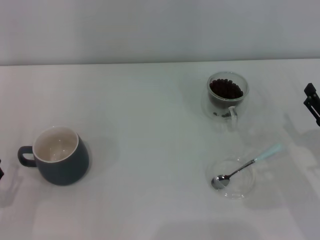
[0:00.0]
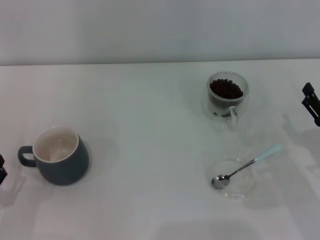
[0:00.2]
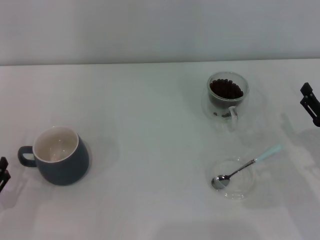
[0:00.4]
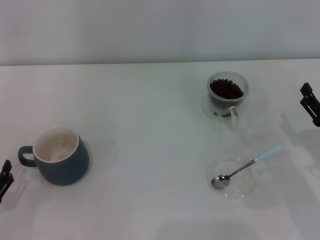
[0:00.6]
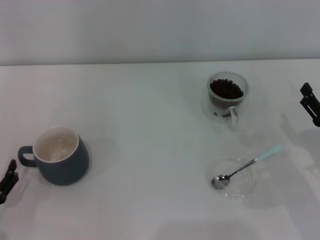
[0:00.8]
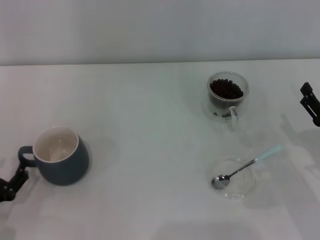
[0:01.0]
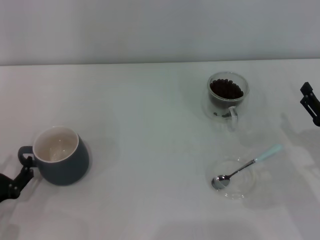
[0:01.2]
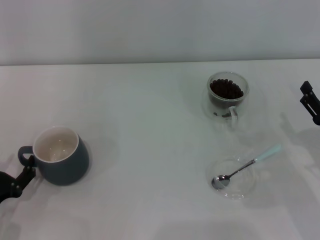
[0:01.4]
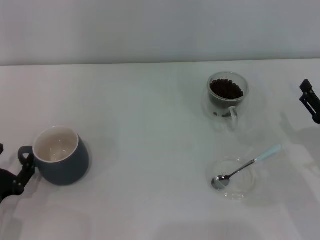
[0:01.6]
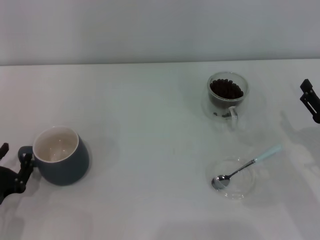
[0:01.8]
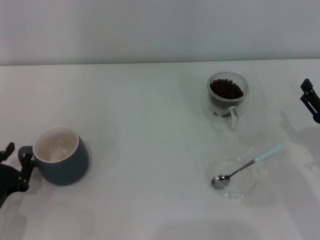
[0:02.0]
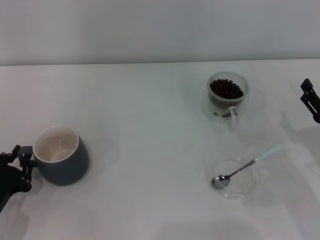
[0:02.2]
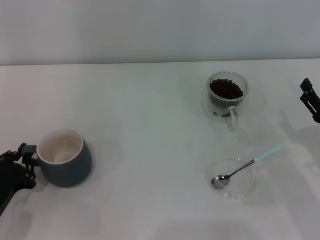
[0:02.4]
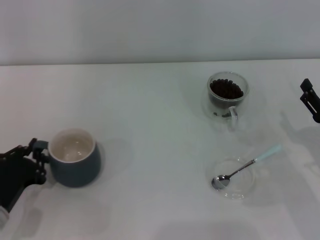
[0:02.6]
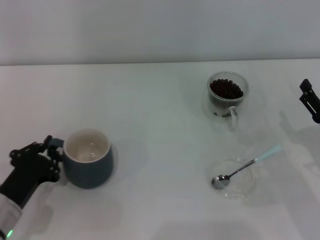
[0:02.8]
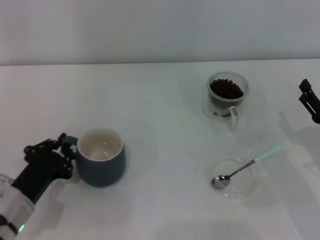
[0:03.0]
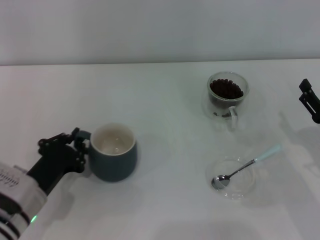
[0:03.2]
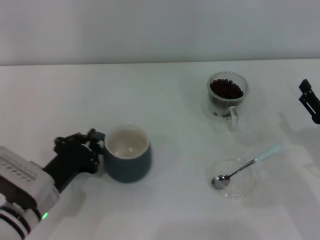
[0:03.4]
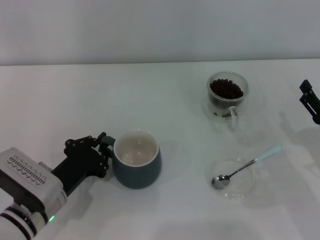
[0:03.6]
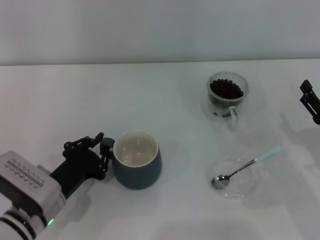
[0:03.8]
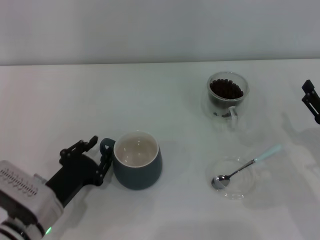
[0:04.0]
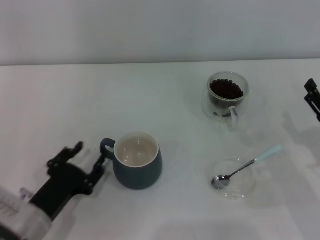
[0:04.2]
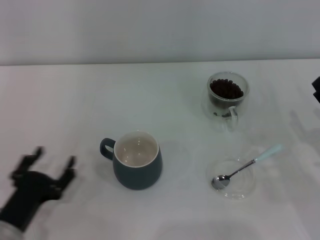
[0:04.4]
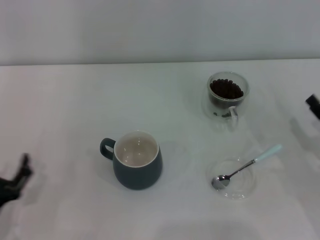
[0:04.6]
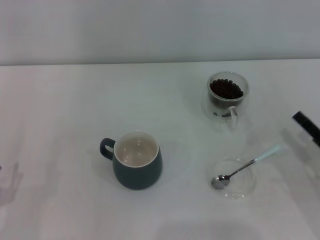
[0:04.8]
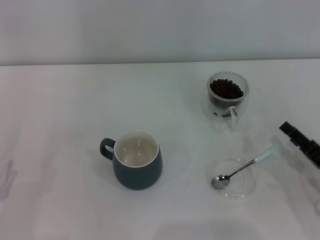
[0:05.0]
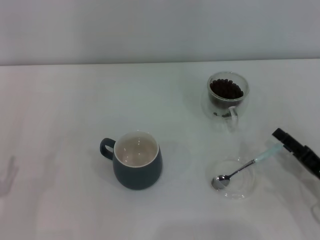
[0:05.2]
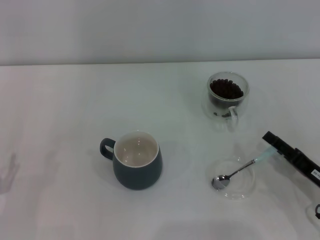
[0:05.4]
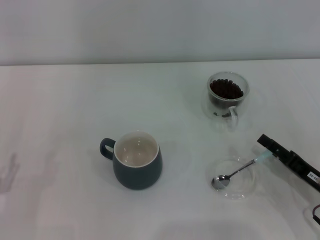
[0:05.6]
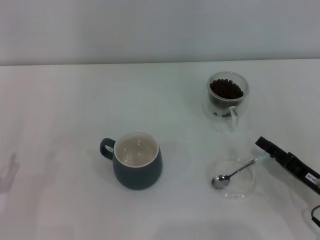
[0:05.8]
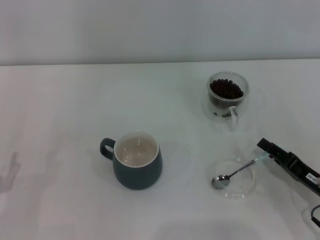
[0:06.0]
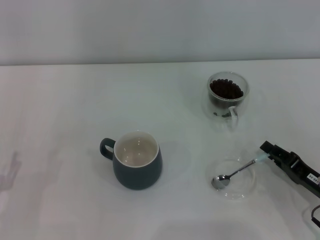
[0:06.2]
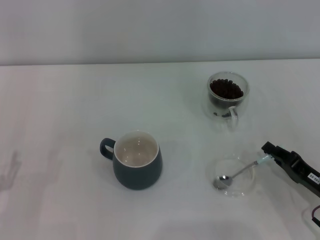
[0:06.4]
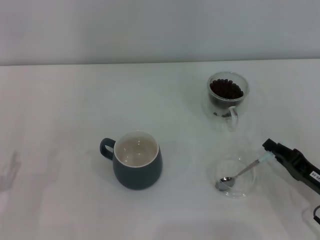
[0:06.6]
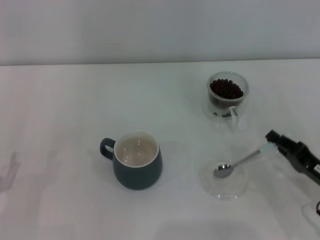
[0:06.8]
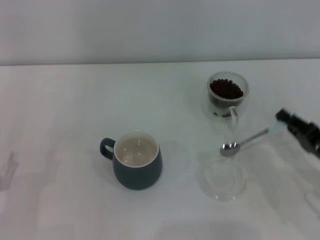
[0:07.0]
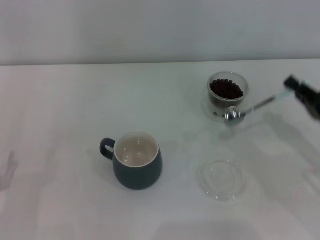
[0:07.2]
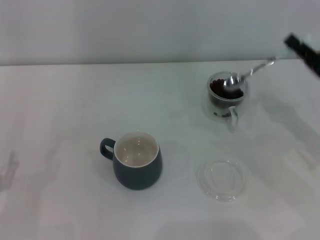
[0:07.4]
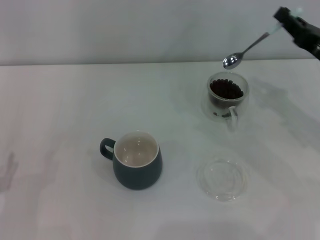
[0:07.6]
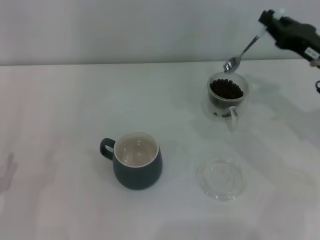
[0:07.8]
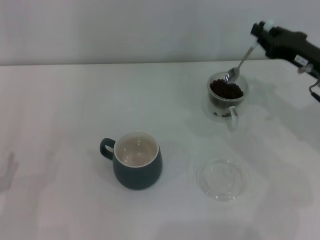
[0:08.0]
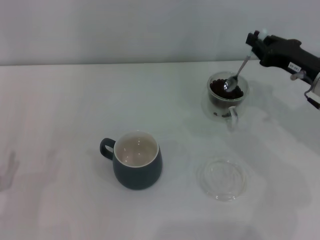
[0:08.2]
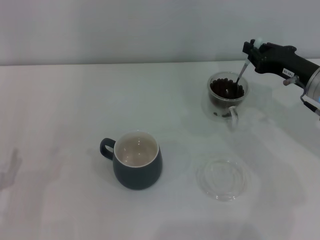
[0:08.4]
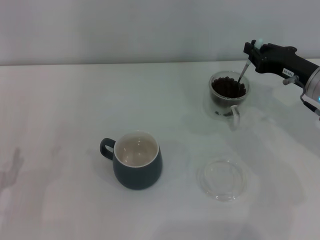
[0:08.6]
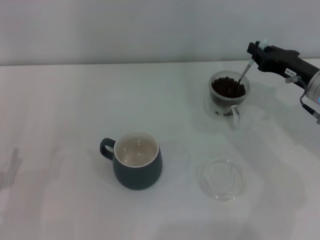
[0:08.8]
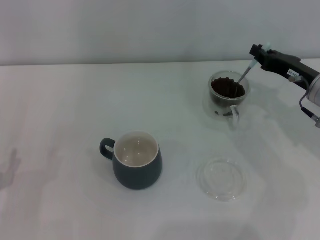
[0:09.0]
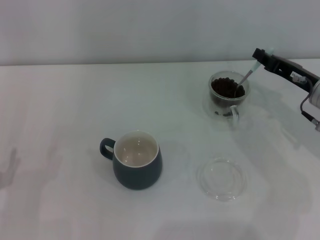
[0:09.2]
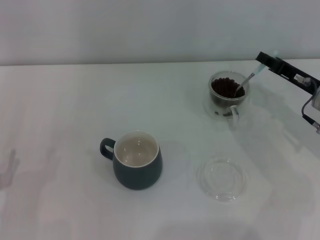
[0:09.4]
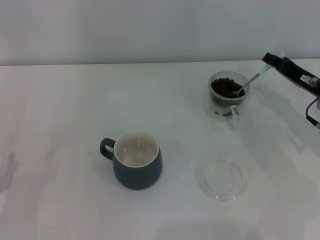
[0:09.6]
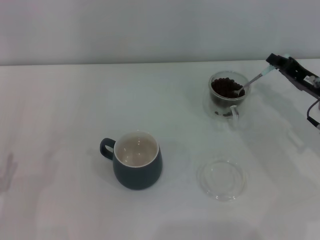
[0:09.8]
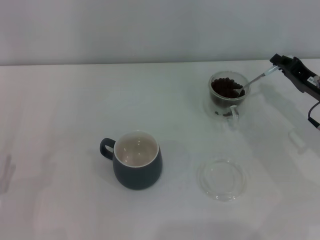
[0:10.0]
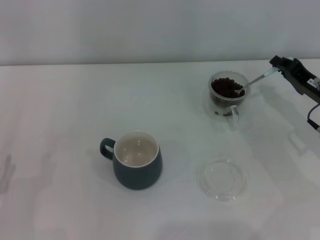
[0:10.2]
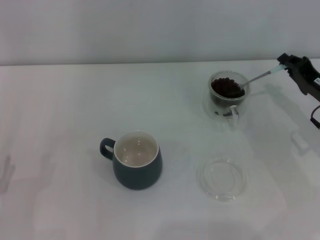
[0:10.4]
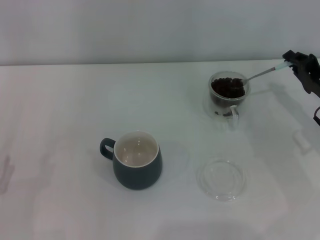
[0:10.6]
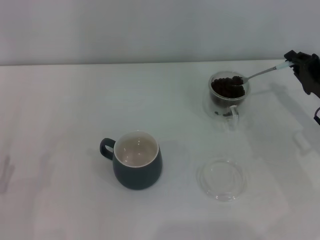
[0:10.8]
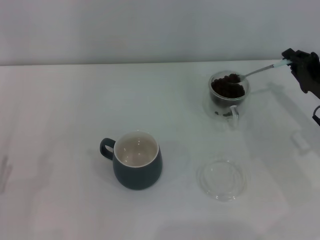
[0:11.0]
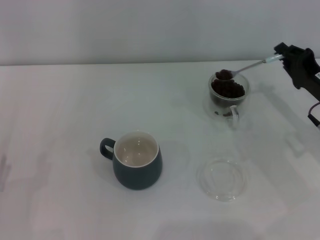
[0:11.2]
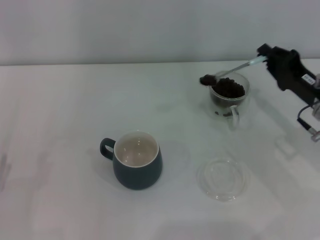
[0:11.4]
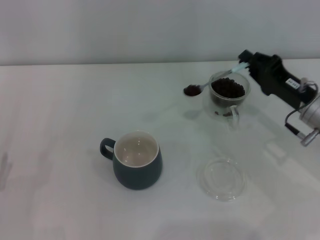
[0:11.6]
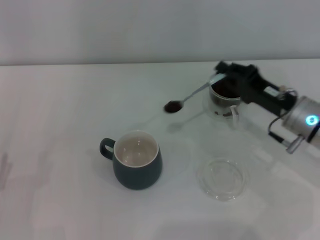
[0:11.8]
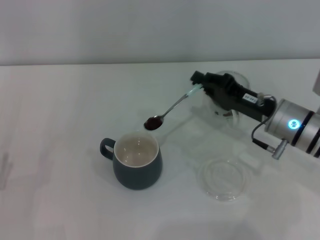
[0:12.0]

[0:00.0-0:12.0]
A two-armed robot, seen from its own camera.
Task of the whole recording: Use a blue spoon to take out the coffee beans from the glass and pour them into the gray cup.
Step, 0:00.0 to 0:04.2: Move the cup to the center of view with the left gripper.
Step, 0:04.4 to 0:06.8: Pick up the spoon with the right gripper.
0:00.0 to 0:01.6: The grippers stay close to where they were, moving slightly.
0:01.6 to 0:03.0: The left gripper moves to the right, some 5 cm, and closes up.
0:03.0 to 0:04.4: The left gripper opens its fingers.
0:04.4 to 0:06.0: The left gripper travels to the left by some 5 cm, and opens up, while the right gripper ends up approximately 5 cm from where it was.
0:06.0 to 0:07.6: The right gripper travels upward and forward by roughly 20 cm, and closes its fingers.
0:10.4 to 0:12.0: The right gripper is displaced to the left by some 10 cm.

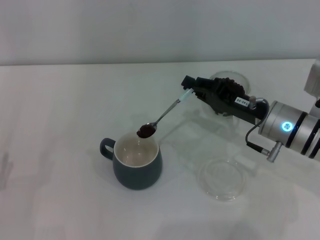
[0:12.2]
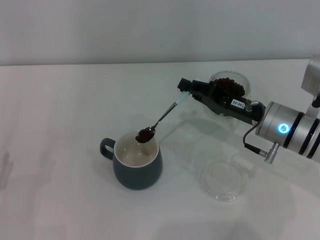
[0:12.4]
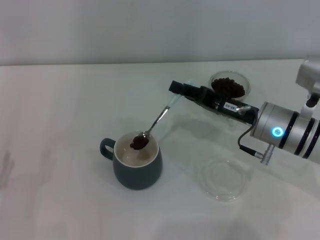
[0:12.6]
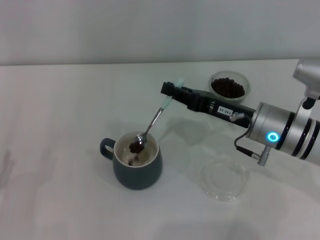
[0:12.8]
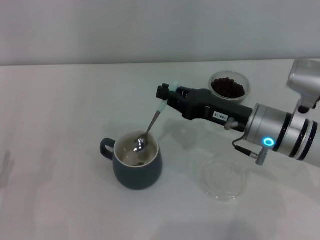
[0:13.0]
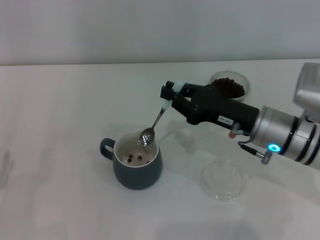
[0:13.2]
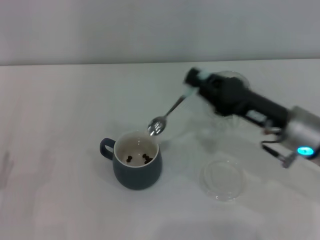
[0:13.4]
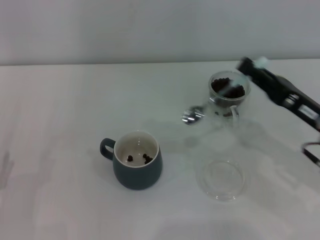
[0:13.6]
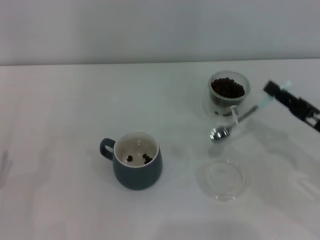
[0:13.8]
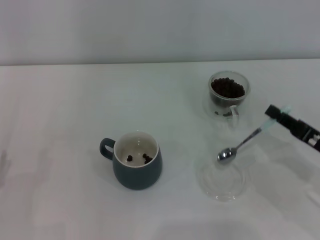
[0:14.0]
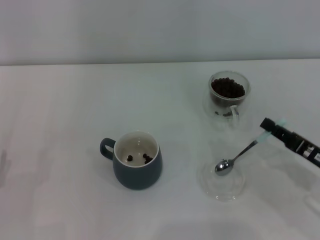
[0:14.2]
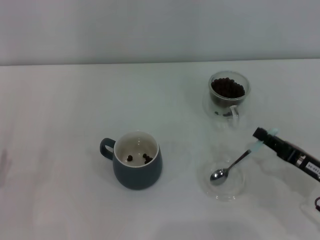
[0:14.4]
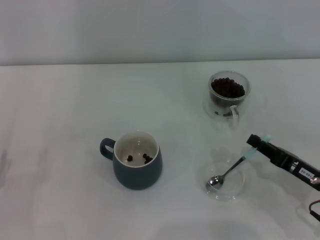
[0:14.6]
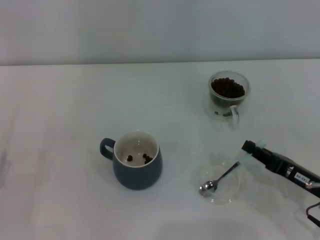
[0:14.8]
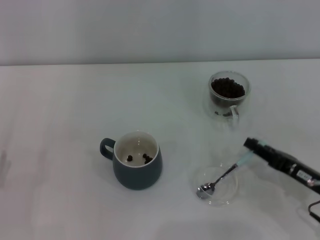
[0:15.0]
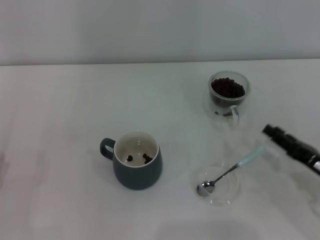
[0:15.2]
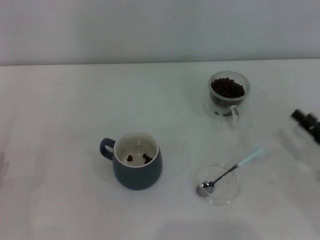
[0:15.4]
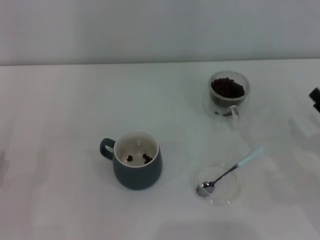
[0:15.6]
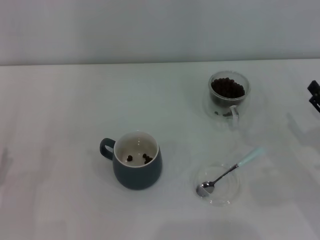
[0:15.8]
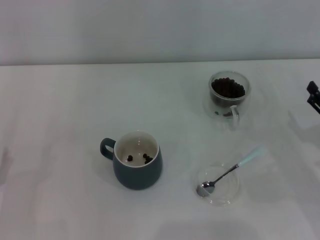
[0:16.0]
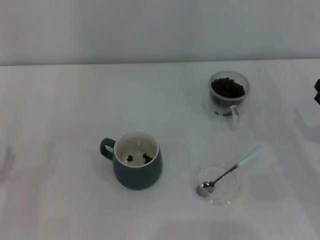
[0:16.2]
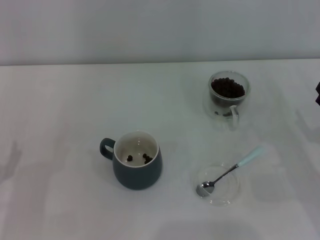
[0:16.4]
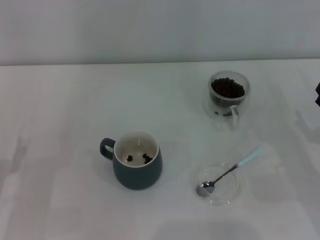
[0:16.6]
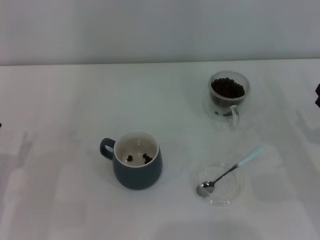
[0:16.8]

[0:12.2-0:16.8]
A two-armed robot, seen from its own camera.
Task of the whole recording: Use a blue spoon to take out the coffee beans from the glass and pour them into the gray cup.
Step, 0:13.6 to 0:15.2: Place the spoon back in its original place with the right gripper.
0:12.2 to 0:13.8: The right gripper goes about 15 cm to the right and backward.
0:13.8 to 0:15.2: The right gripper shifts by some 5 cm.
0:15.2 to 0:16.8: The right gripper opens.

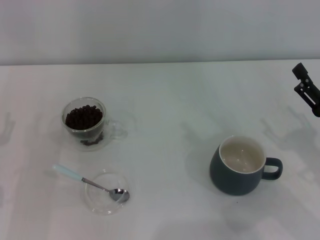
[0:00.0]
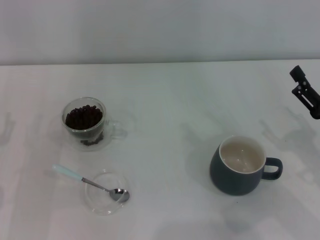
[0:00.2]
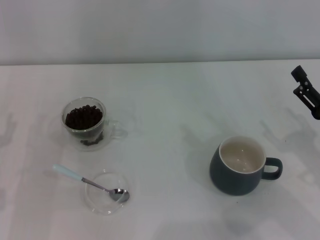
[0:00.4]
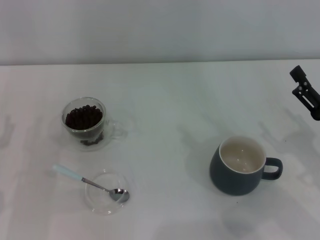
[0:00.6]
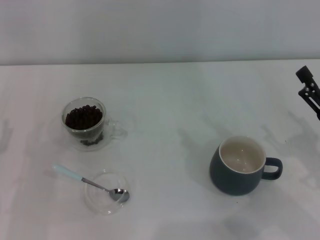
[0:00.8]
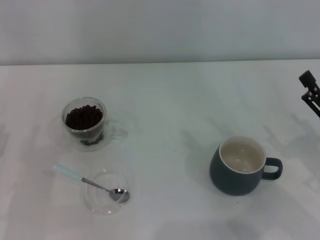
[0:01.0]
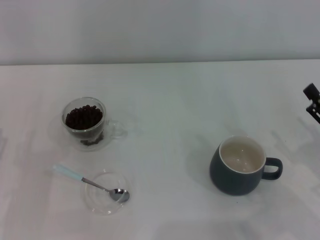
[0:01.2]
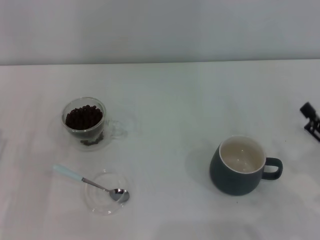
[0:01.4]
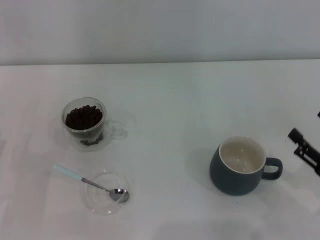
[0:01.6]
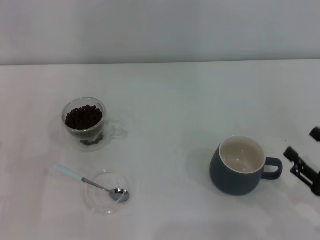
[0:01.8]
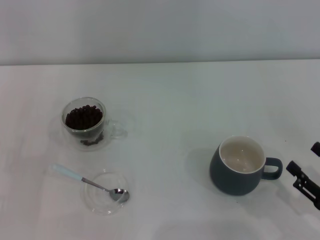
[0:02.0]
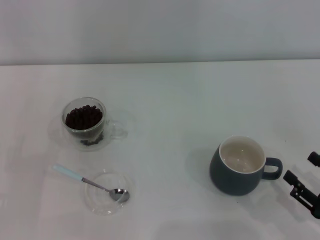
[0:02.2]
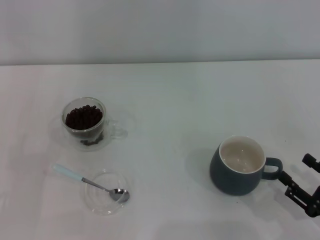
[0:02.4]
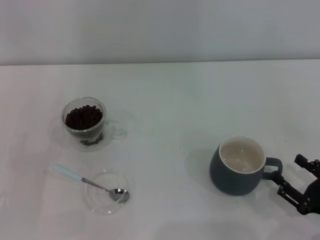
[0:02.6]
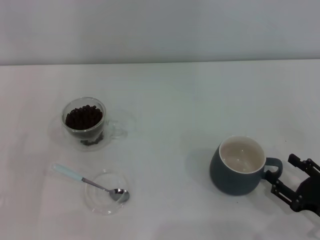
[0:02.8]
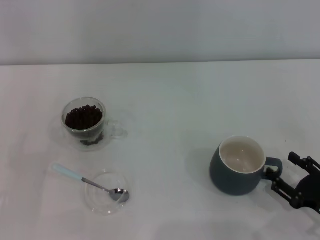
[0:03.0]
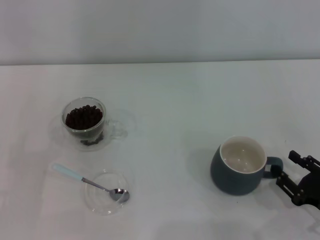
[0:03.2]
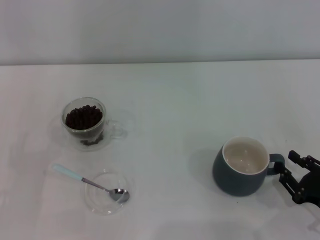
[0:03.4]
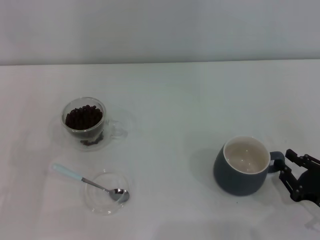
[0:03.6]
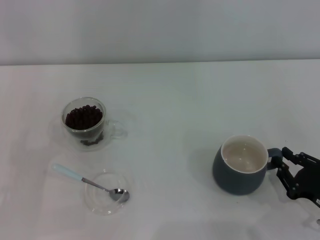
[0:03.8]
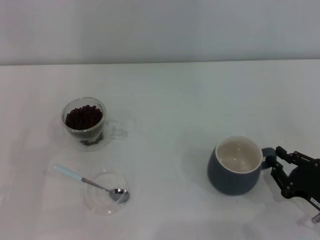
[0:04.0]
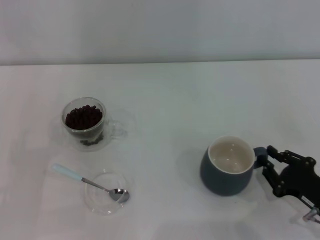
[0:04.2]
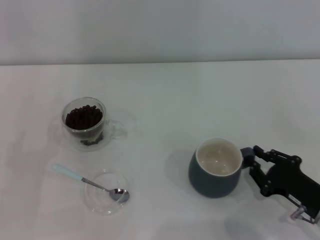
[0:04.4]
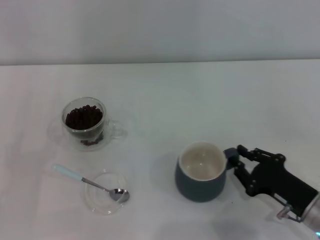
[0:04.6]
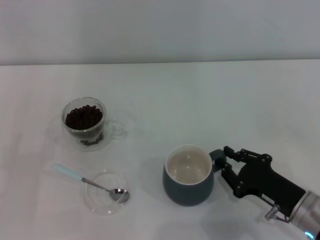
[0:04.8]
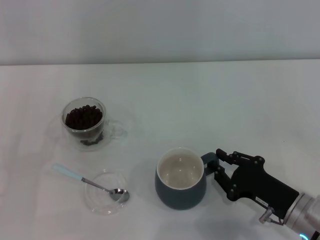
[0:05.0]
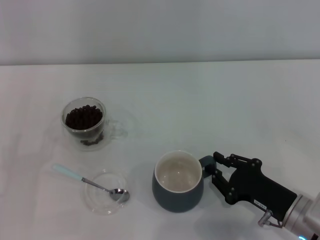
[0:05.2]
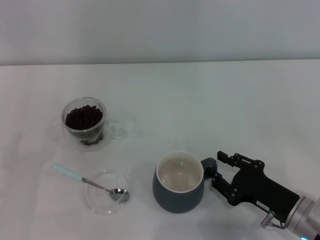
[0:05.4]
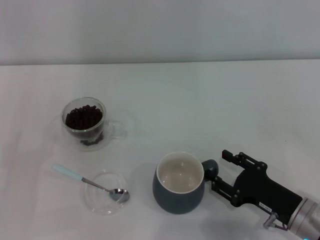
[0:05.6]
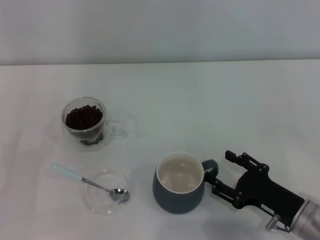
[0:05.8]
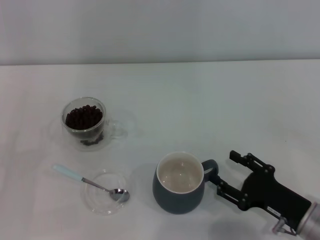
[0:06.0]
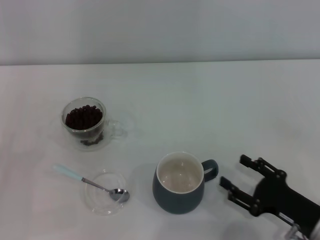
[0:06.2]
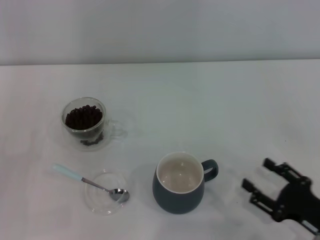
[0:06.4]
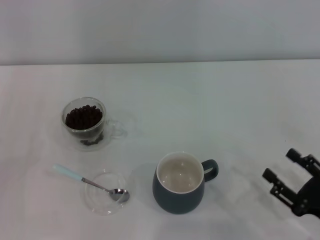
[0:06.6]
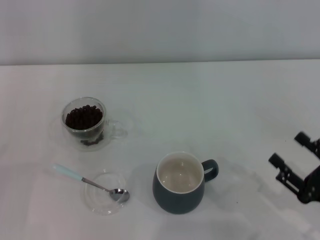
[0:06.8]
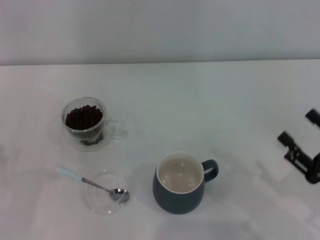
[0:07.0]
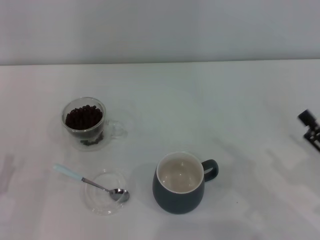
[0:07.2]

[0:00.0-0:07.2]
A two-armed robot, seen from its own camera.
Task of the whole recording: Use a blue spoon to take out the coffee beans from the glass and pour them into the gray cup.
Step, 0:00.0 to 0:06.6: Move the cup to the center of view with the left gripper.
0:00.0 to 0:01.4: The grippers move only a little.
0:01.4 to 0:02.8: The right gripper moves downward, roughly 5 cm.
0:02.8 to 0:04.4: The right gripper closes its fingers.
0:04.4 to 0:05.8: The right gripper opens.
0:05.8 to 0:07.2: The right gripper heads to the right and upward, covering roughly 10 cm.
